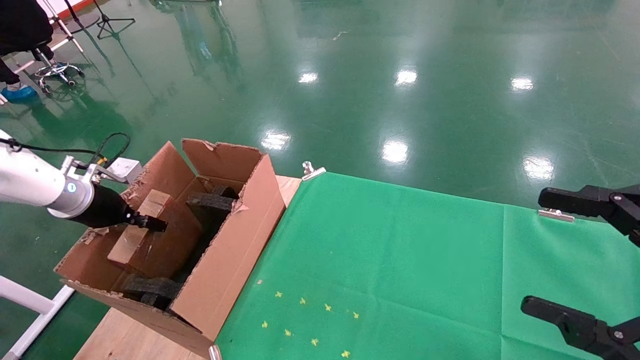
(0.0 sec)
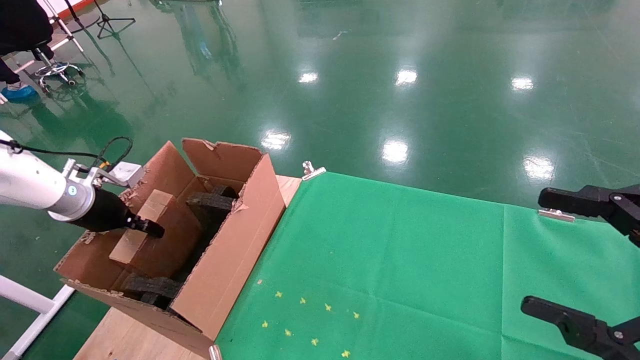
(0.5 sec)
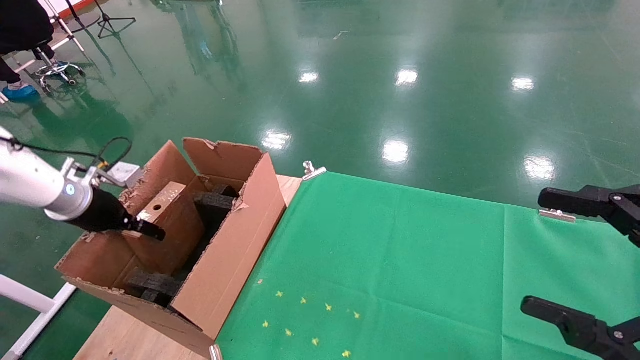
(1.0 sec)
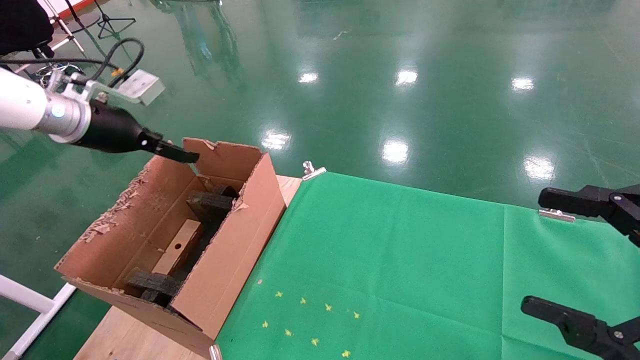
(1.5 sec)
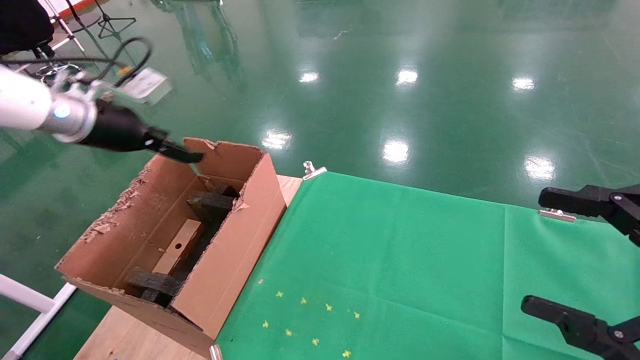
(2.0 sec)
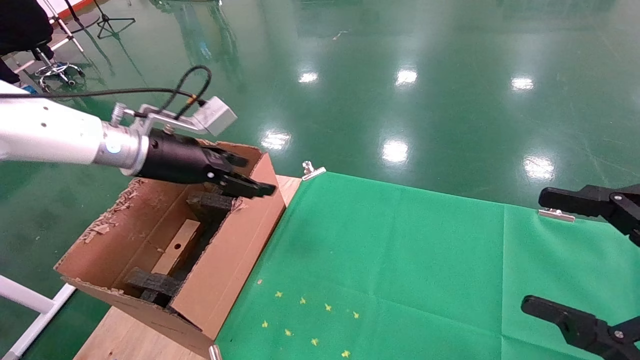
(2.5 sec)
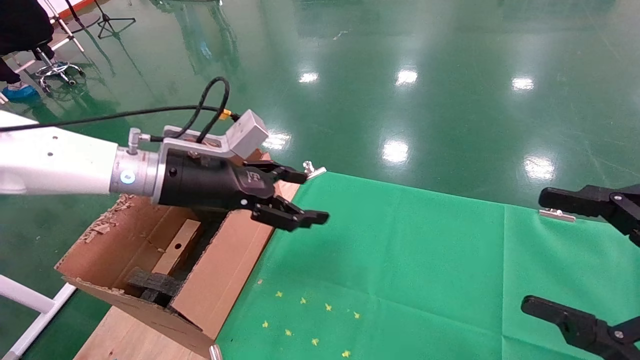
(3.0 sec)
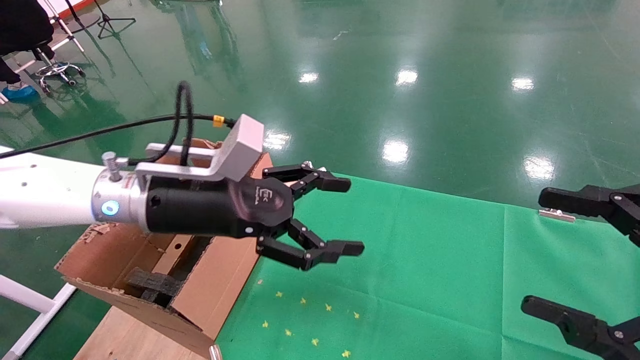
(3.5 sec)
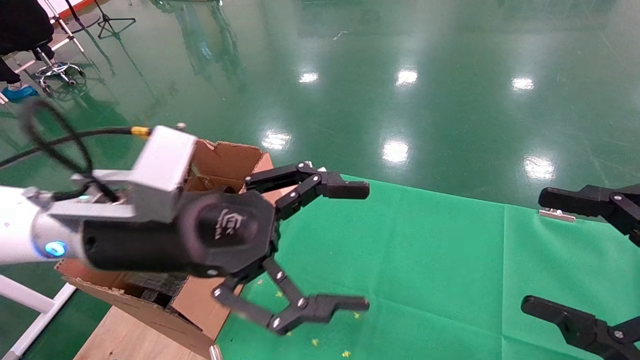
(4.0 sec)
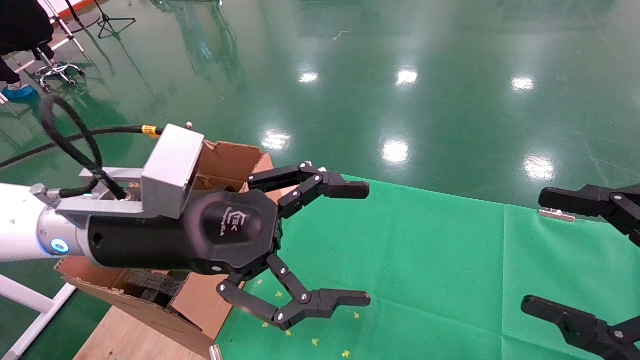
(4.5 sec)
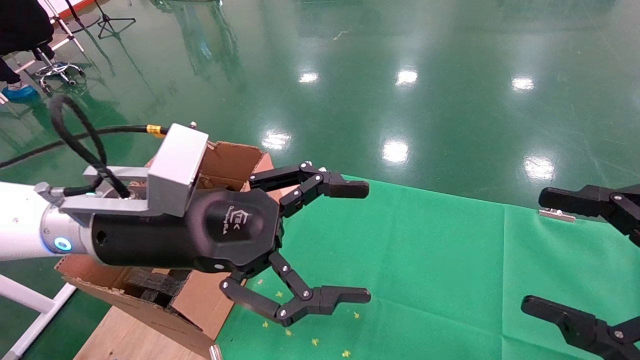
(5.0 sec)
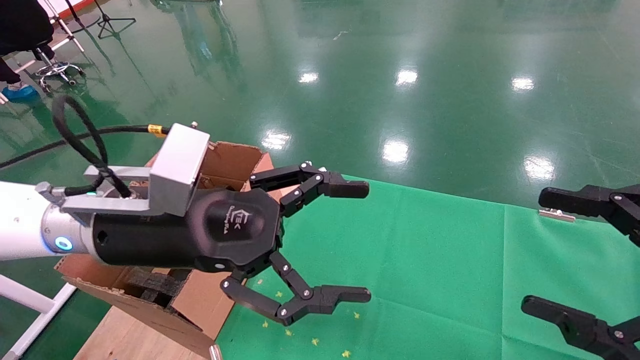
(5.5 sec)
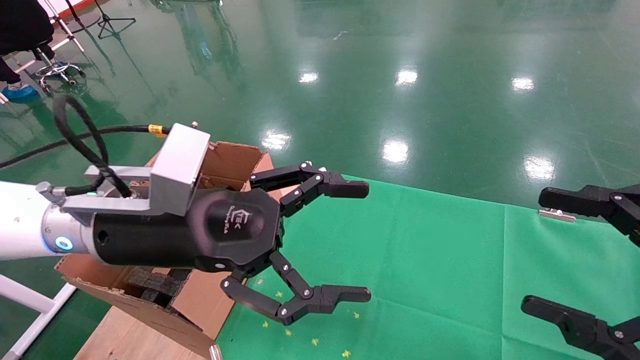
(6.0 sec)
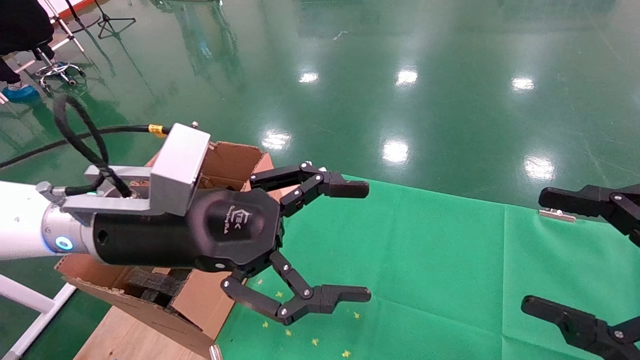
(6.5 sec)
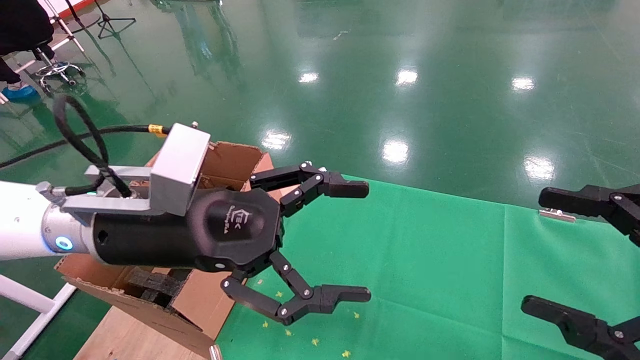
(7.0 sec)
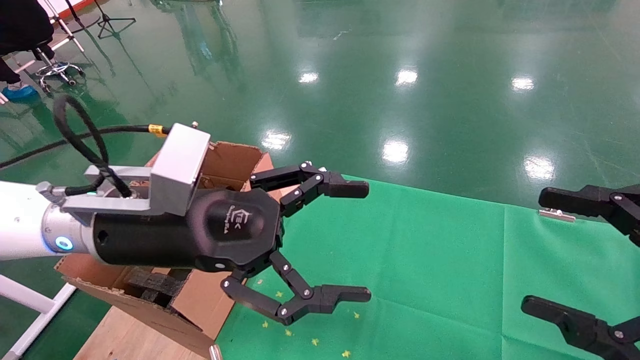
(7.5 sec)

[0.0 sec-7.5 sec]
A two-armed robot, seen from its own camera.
Task of the whole recording: using a robotic arm to pick up a cardboard box and palace it the carton.
0.0 sec to 2.0 sec: The left gripper shifts roughly 15 cm upward and to the right, and opens its fingers.
2.0 sec to 4.0 sec: The left gripper heads to the right and backward, covering about 25 cm.
4.0 sec to 7.5 sec: The two grippers keep their place.
